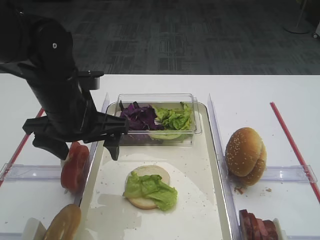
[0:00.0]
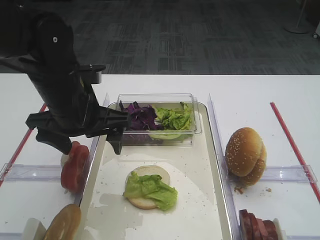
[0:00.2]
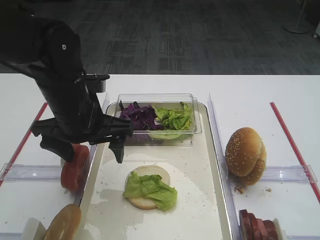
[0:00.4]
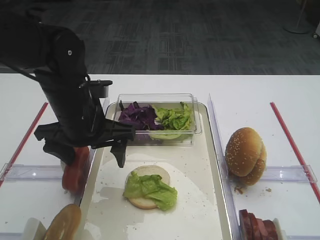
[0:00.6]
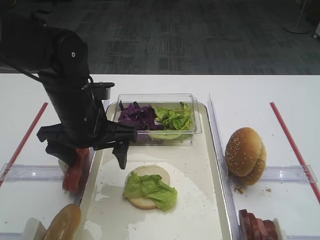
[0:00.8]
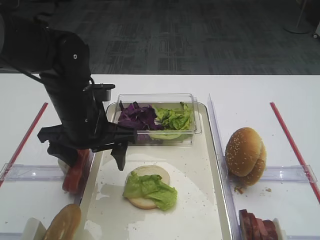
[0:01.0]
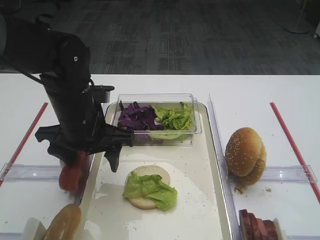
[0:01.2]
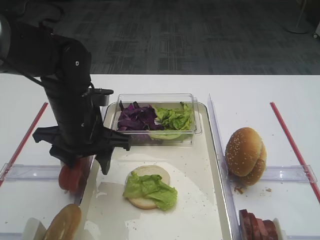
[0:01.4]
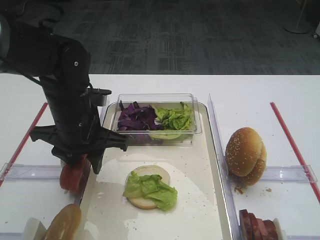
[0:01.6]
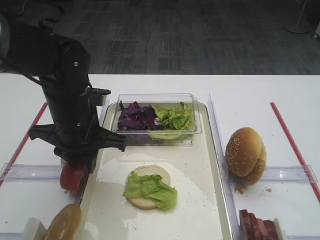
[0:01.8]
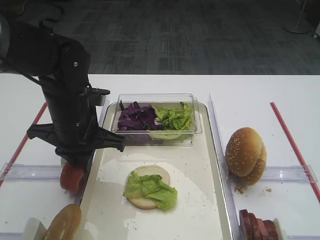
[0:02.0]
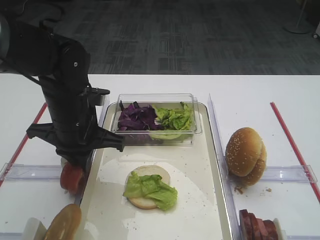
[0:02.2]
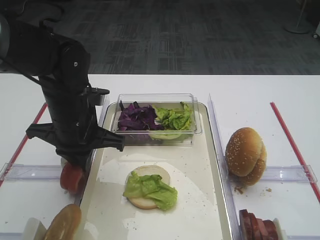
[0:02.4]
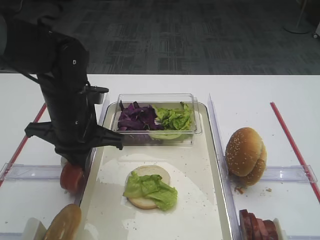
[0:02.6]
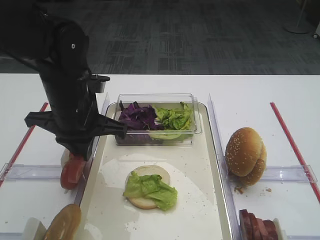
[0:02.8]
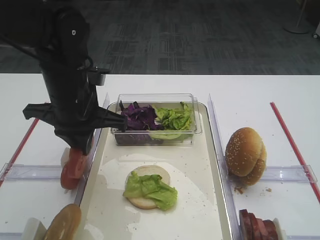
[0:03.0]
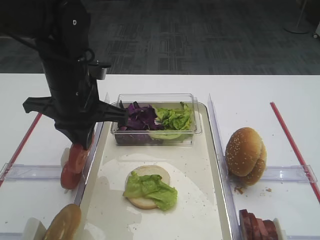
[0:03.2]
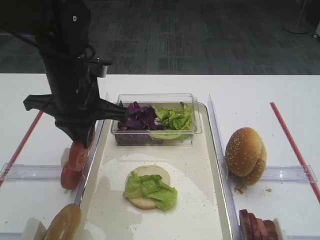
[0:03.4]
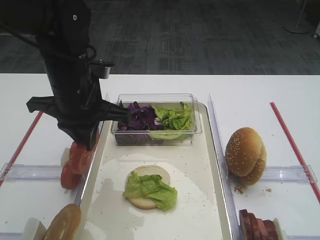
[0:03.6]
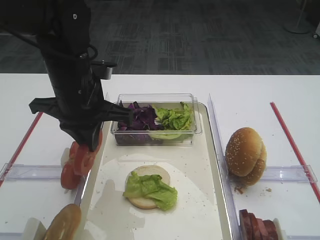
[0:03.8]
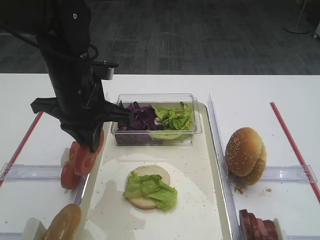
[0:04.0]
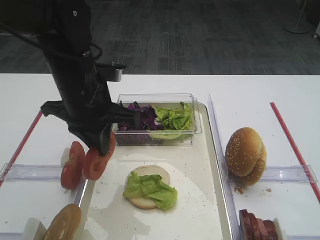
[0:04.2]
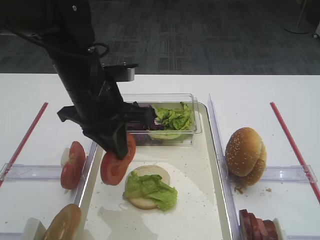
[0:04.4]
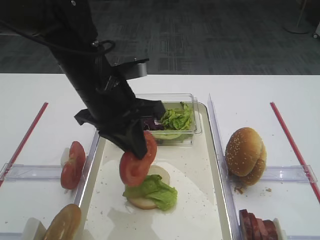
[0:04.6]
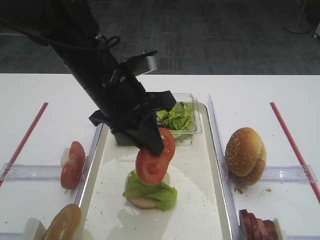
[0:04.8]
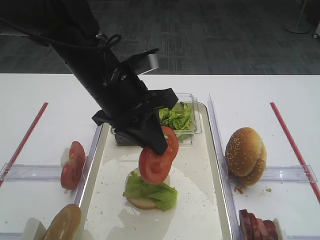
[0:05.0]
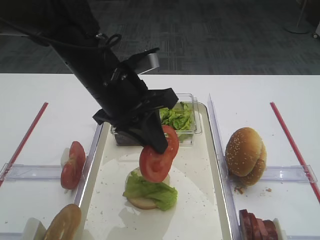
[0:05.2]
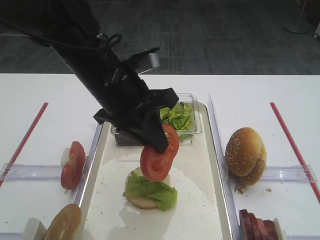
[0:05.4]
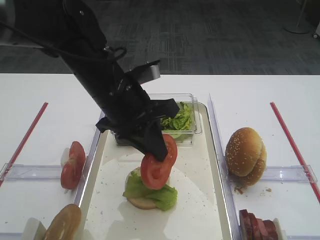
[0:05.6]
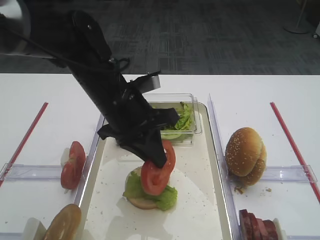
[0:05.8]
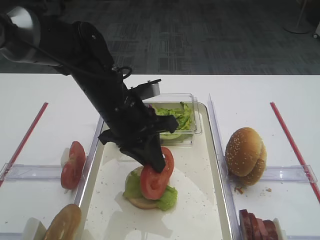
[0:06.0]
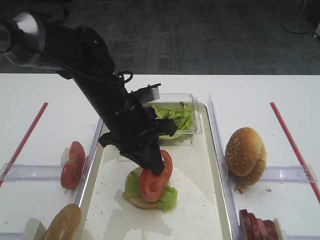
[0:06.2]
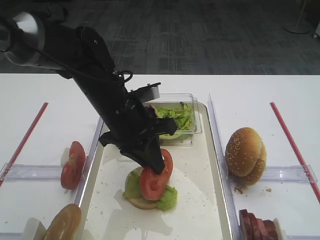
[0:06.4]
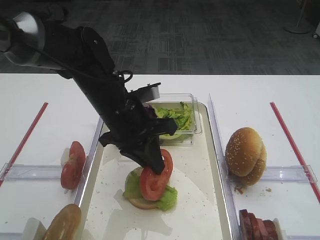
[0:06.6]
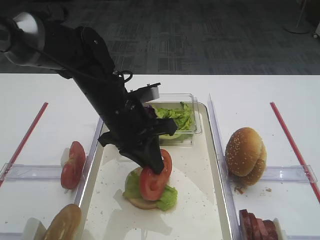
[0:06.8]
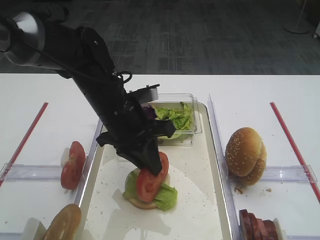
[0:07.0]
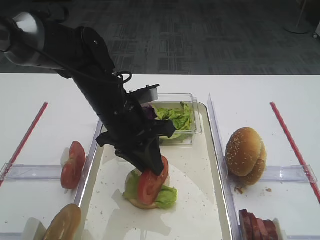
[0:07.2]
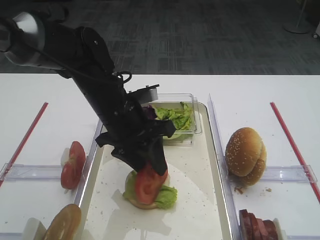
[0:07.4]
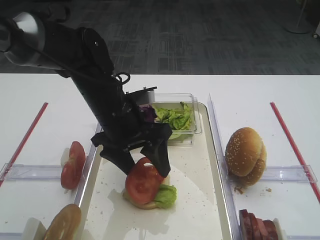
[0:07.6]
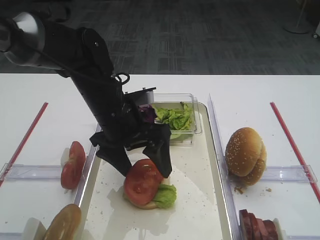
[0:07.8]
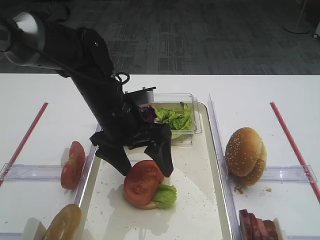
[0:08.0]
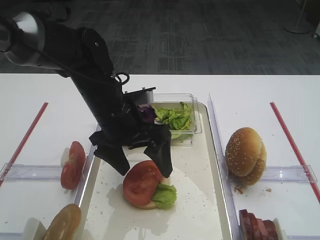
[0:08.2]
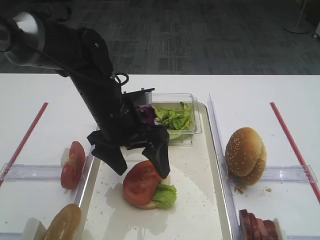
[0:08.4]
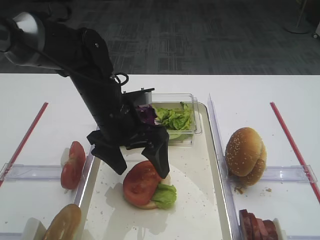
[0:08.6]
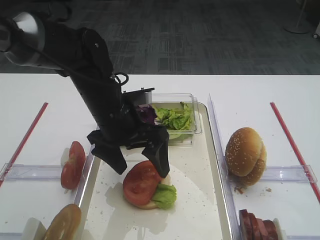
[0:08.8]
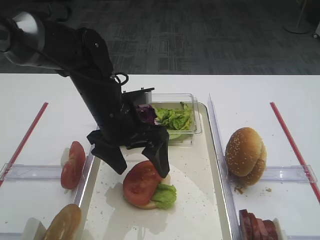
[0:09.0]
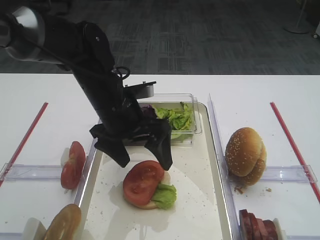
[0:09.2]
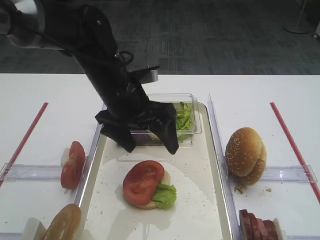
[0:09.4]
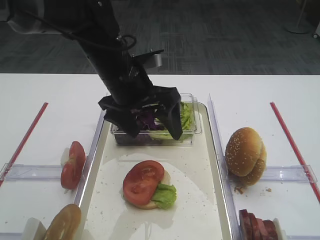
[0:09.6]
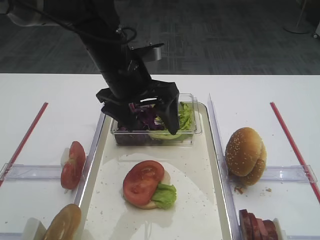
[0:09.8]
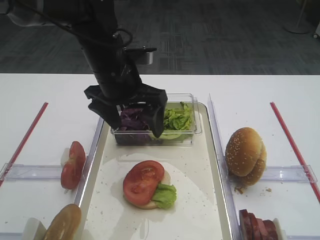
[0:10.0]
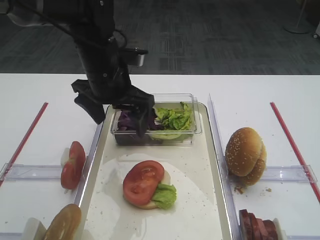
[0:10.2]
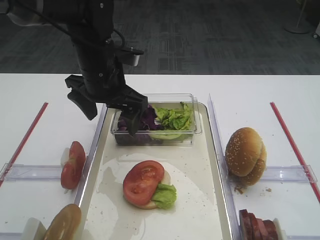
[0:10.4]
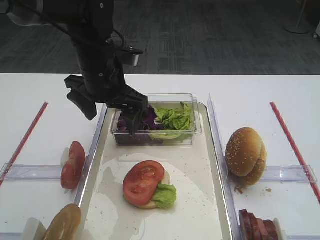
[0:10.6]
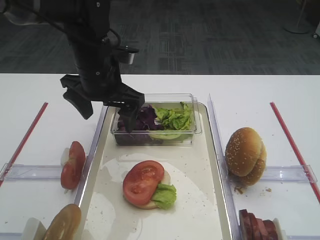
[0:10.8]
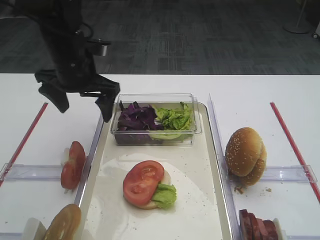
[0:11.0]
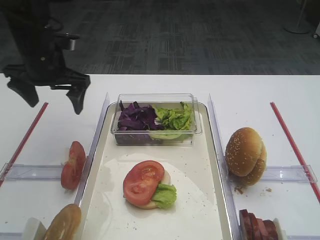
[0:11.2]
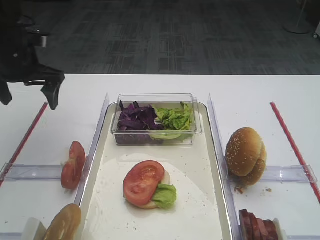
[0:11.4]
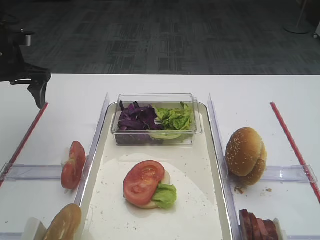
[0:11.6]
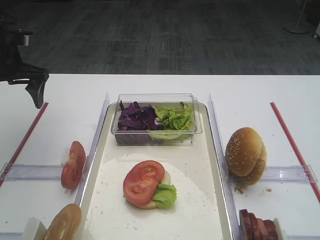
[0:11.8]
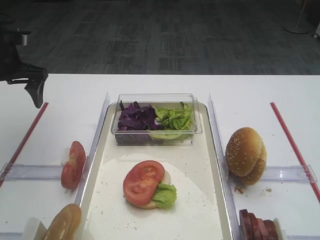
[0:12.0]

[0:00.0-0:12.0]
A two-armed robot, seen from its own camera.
Step, 0:00.0 to 0:03.2: Pick up the tomato slice with the left gripper.
Step, 0:03.4 to 0:08.6: Place the tomato slice on the lettuce leaf with the left gripper.
0:00.0 to 0:01.6: The left gripper closes its fingers.
0:01.6 to 0:03.0: The left gripper closes its fingers.
0:04.4 to 0:06.0: The left gripper ends up about 5 cm from where it was.
0:06.0 to 0:07.6: The left gripper opens its fingers.
0:07.6 to 0:09.0: The two grippers keep their place.
0:09.0 to 0:10.4: The left gripper travels upward by roughly 5 cm.
0:10.4 to 0:12.0: The left gripper shifts approximately 20 cm to the left.

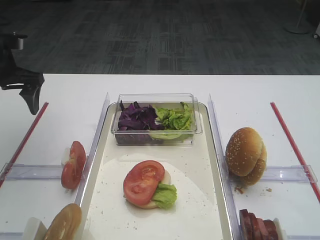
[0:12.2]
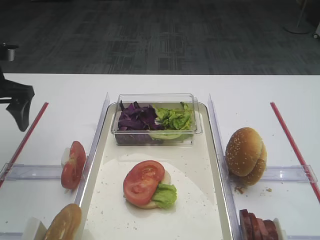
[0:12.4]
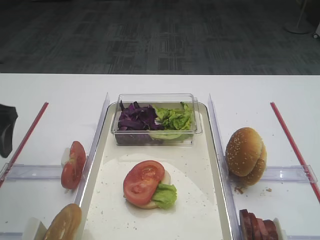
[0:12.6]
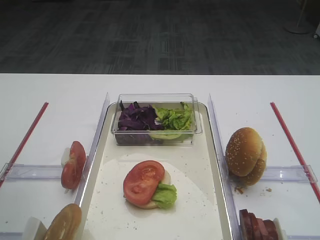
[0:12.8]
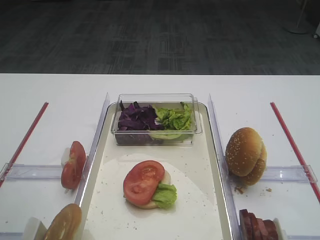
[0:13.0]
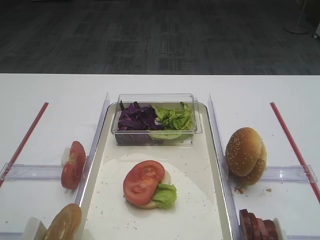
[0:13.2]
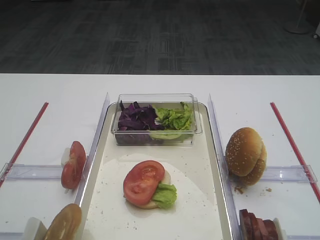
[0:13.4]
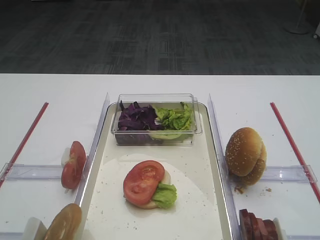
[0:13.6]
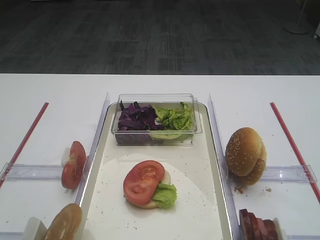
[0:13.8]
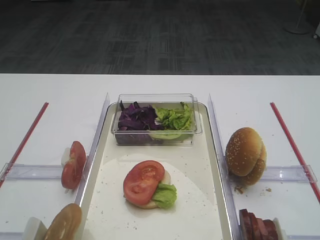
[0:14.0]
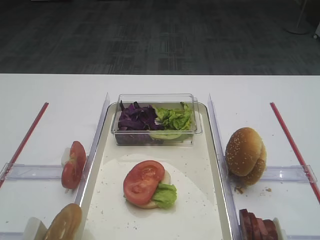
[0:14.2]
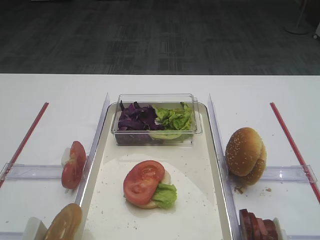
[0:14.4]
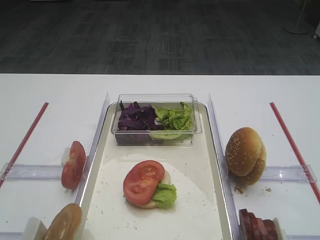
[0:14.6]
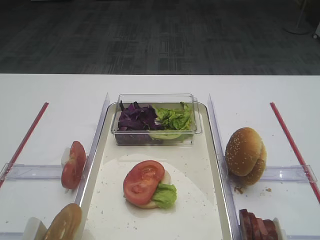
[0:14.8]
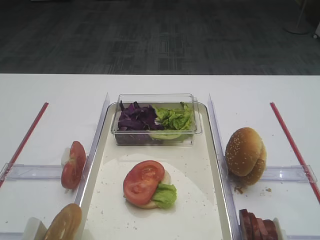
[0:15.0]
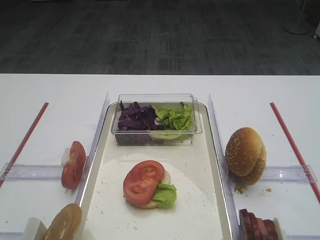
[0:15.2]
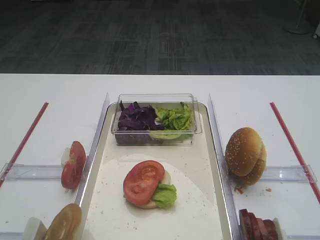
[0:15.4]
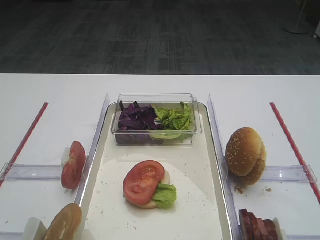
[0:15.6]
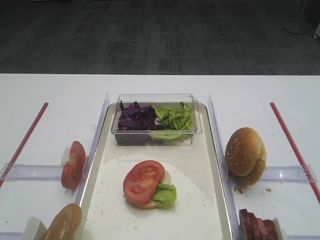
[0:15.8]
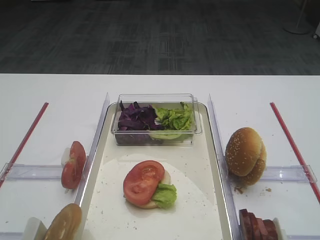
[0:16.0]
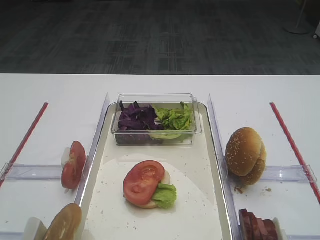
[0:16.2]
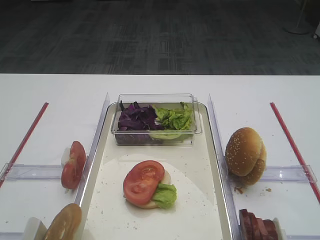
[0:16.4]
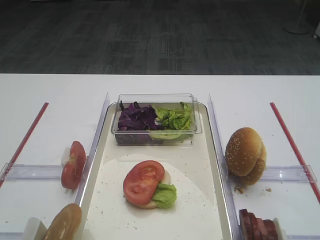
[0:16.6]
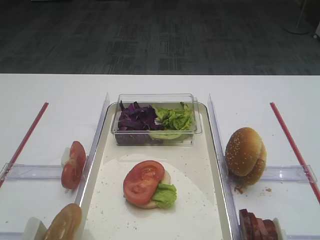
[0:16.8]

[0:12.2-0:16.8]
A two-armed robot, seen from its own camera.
0:12.2 to 0:13.8: The left gripper shifts approximately 35 cm backward.
0:15.2 to 0:16.8: Both grippers stay about where they are.

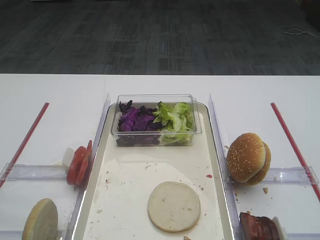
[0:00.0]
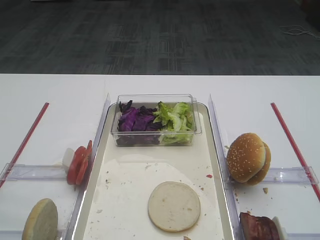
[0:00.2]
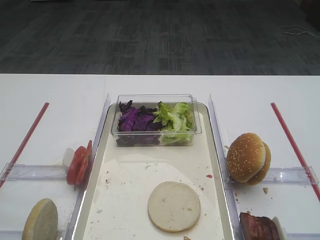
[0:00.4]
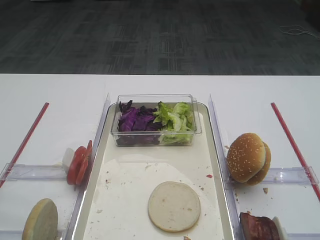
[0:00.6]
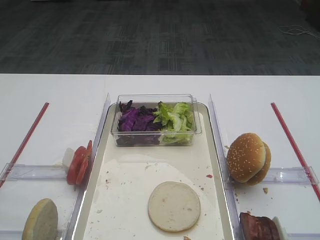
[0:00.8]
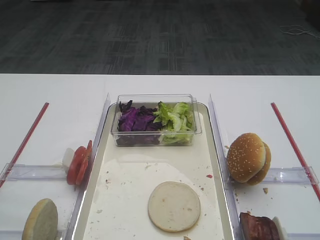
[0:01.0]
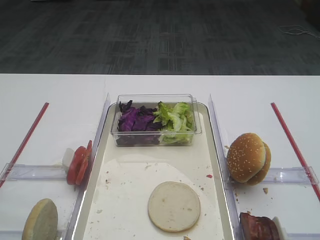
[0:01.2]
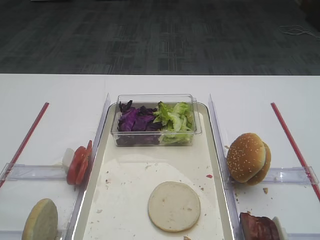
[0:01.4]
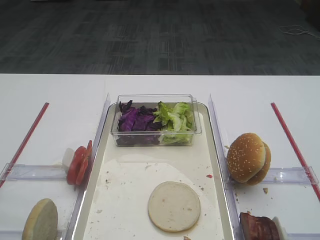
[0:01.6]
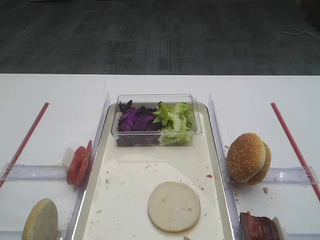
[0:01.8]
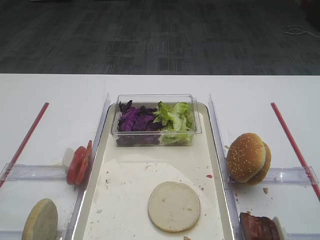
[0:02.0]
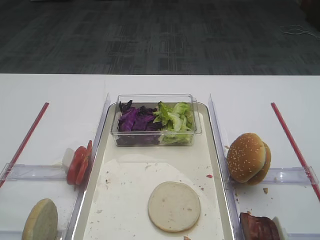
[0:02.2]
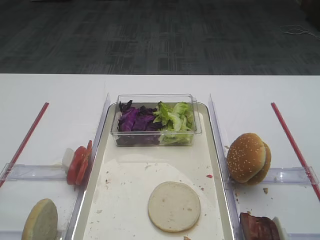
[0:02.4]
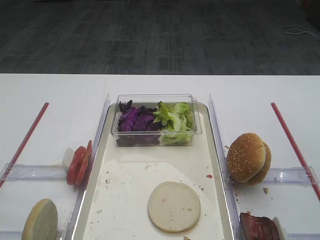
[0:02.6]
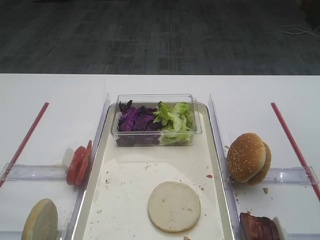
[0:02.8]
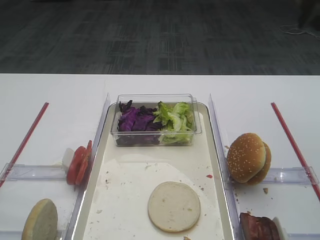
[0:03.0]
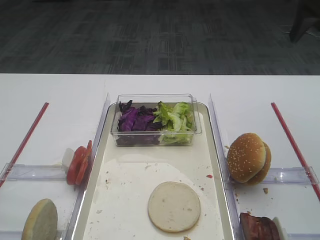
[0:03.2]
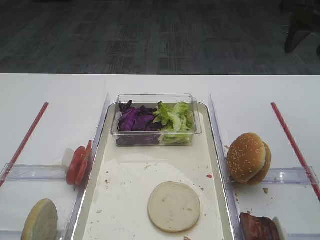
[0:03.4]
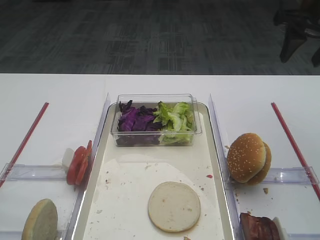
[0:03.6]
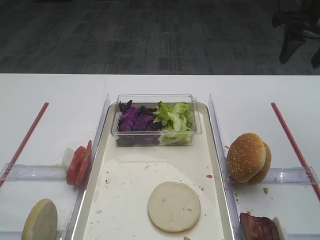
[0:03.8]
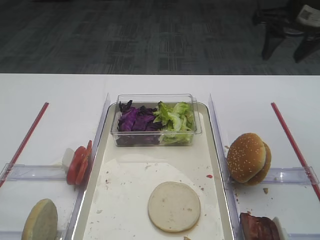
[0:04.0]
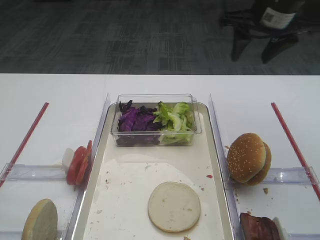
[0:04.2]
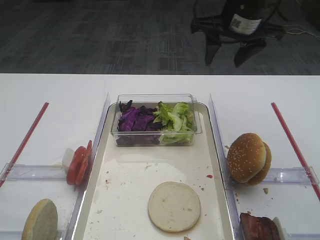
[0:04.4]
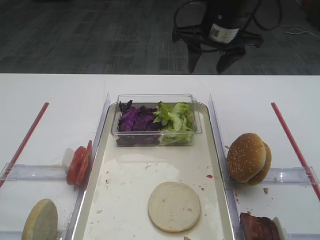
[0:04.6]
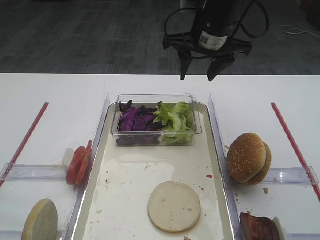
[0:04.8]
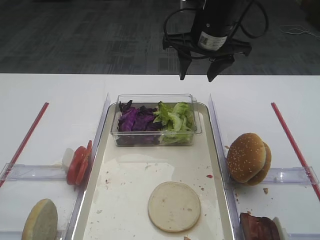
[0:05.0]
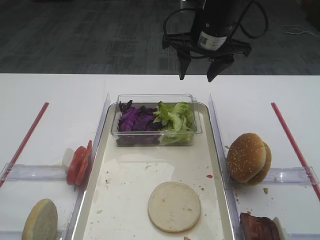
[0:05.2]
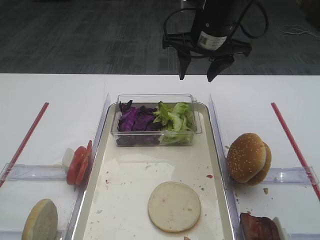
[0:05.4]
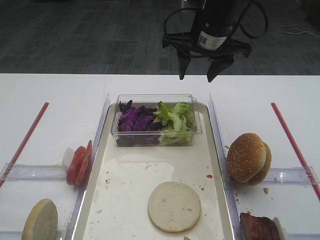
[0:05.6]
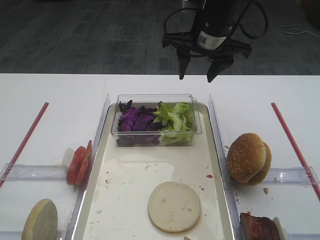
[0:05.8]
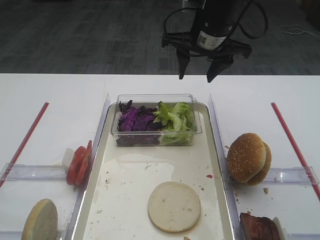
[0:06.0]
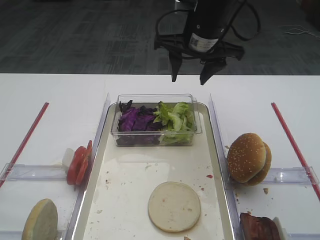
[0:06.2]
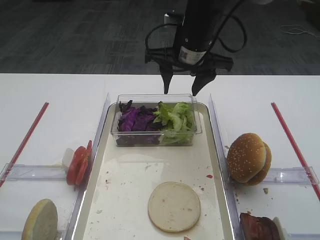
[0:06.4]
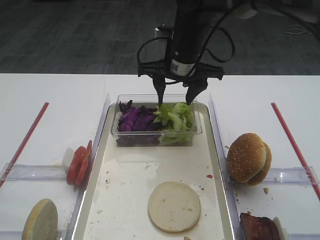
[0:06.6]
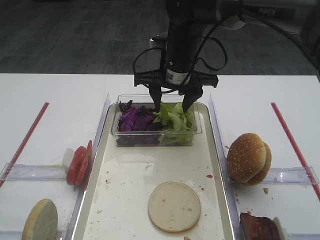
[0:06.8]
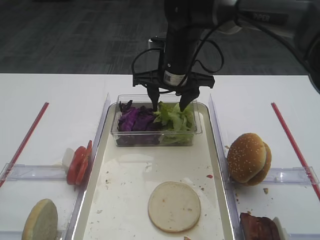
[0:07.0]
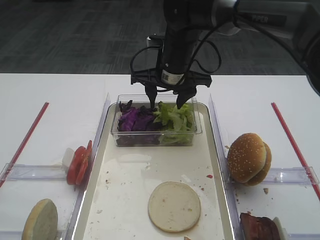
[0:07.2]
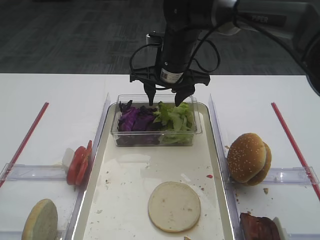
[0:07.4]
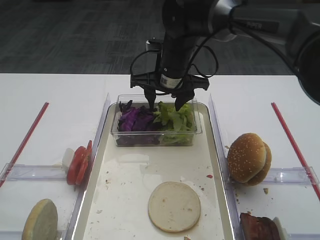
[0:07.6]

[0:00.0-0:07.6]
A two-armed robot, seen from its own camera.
0:03.0 to 0:04.6: The right gripper shifts roughly 20 cm to the left, downward and forward.
0:04.6 to 0:06.0: The grippers stay close to where they were, moving slightly.
0:06.0 to 0:07.6: The right gripper goes some 10 cm downward and to the left.
